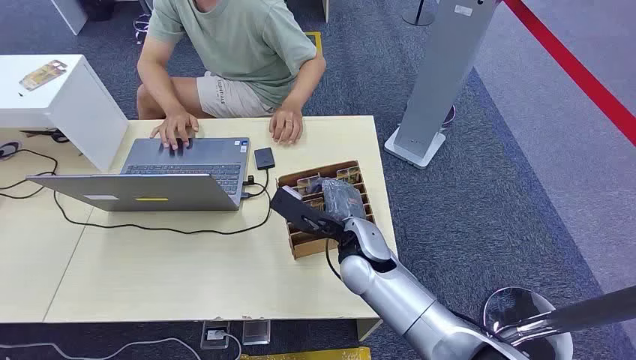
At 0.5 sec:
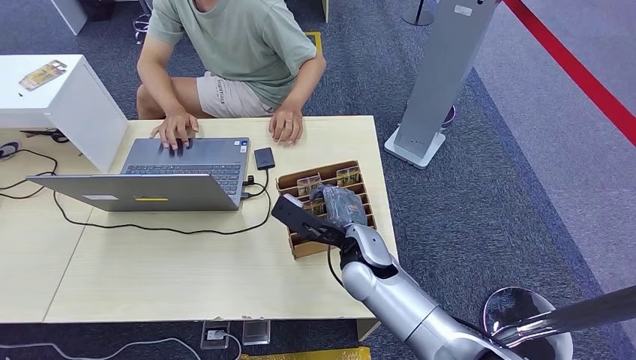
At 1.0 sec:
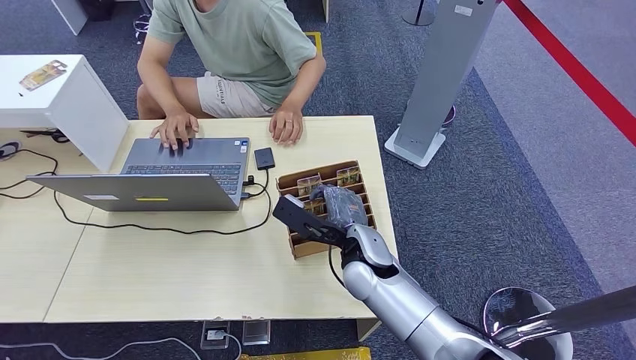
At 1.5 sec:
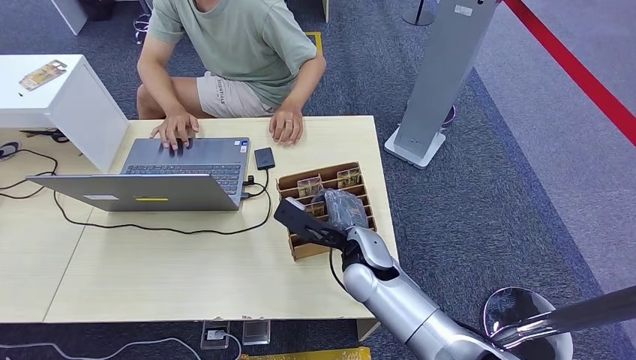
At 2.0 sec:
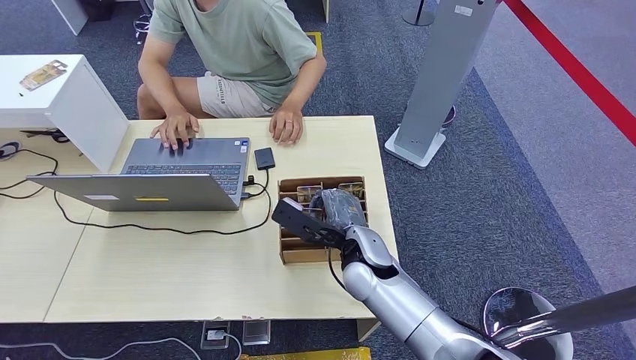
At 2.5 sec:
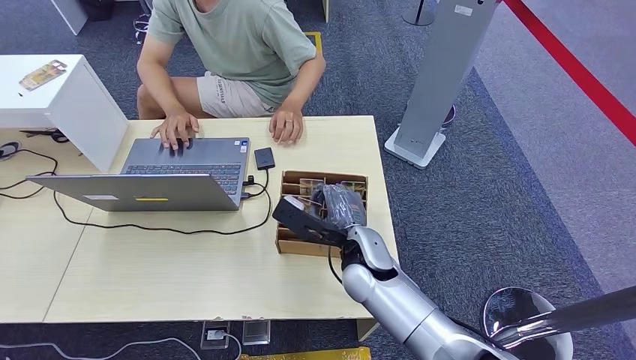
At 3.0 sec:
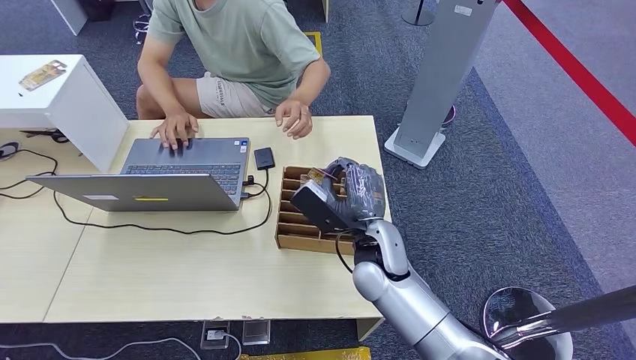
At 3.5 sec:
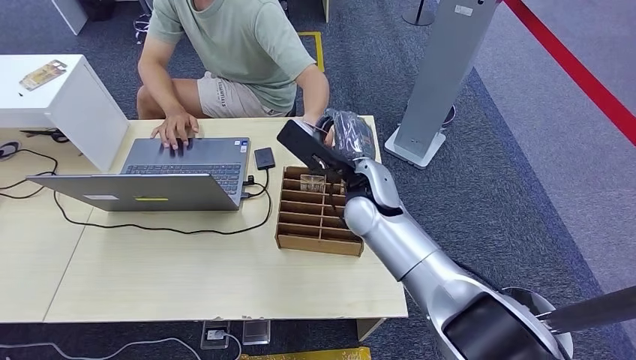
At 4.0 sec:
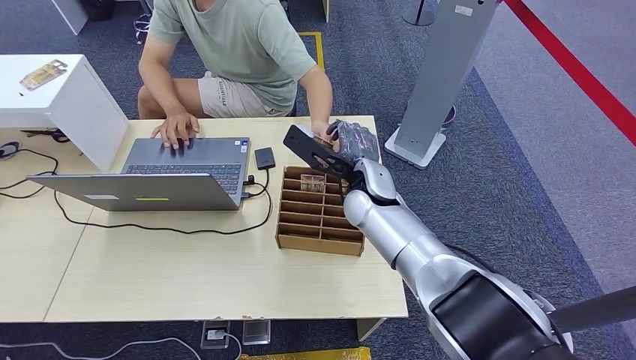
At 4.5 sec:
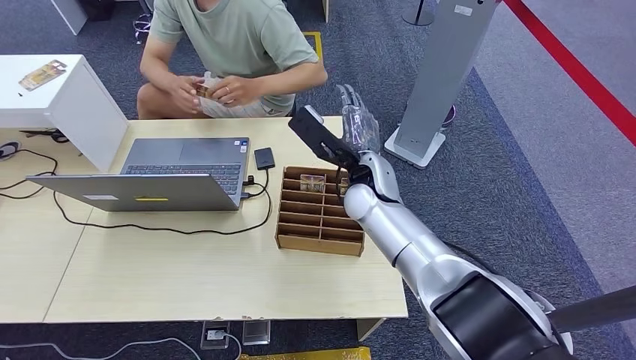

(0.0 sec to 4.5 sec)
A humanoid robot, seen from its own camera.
Step, 0.0 sec - 2.5 sec: Pick up the room card from the card holder.
Step, 4.0 sec - 4.5 sec: Hand the room card to the target.
2.0 sec - 4.5 sec: The right hand moves forward and upward, some 15 cm.
